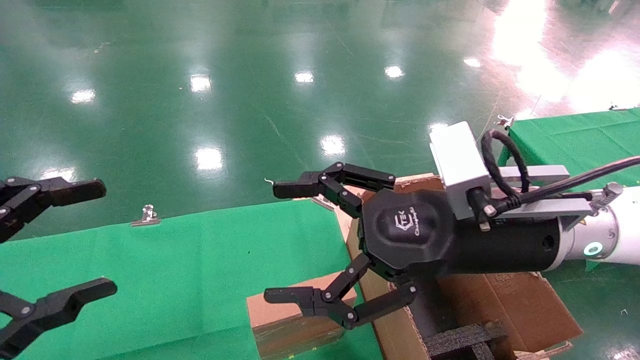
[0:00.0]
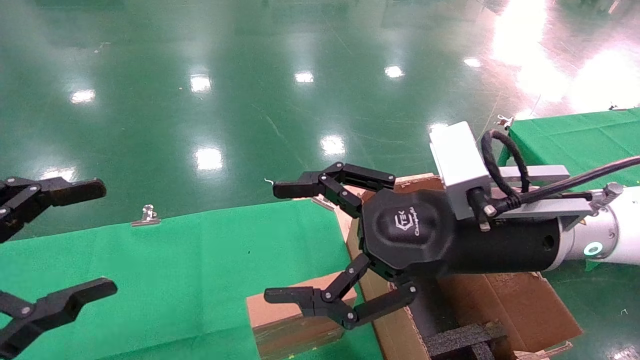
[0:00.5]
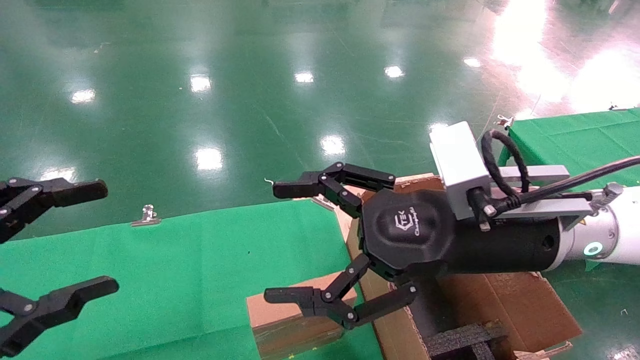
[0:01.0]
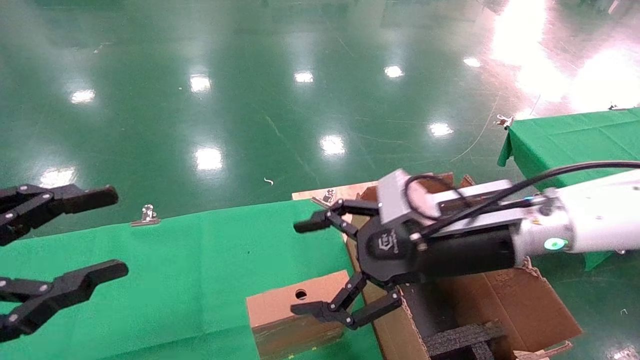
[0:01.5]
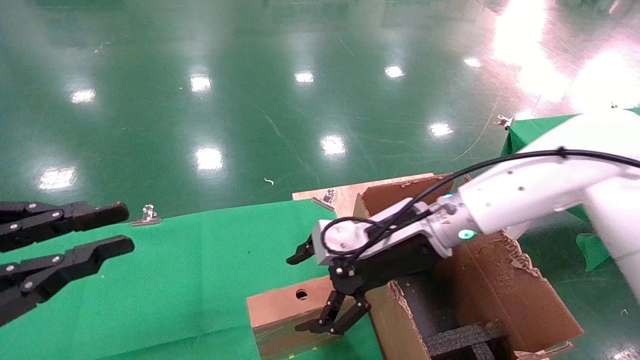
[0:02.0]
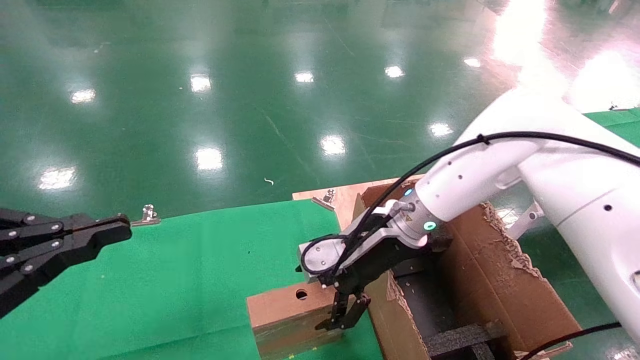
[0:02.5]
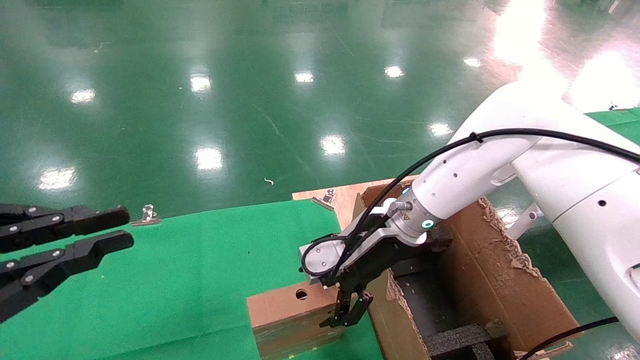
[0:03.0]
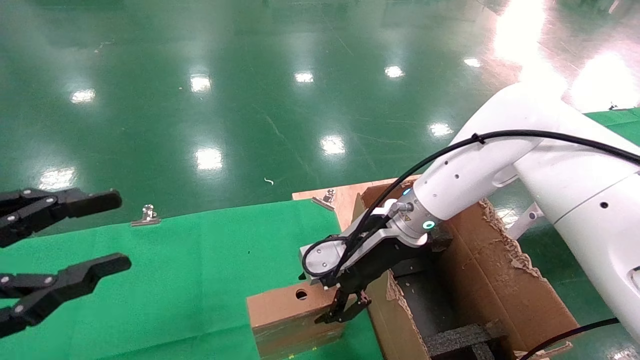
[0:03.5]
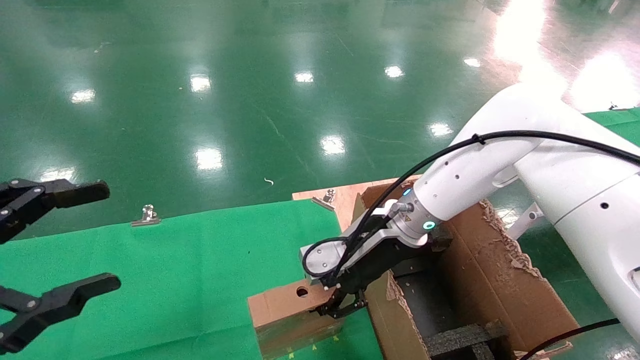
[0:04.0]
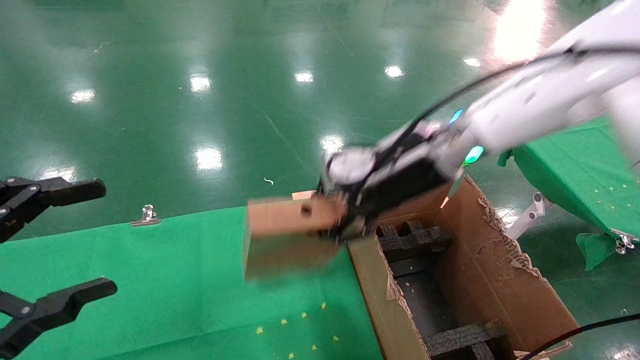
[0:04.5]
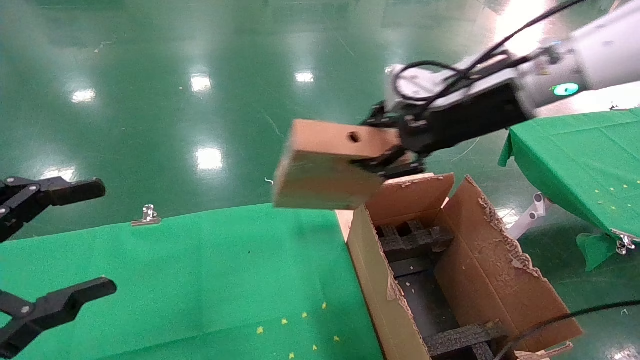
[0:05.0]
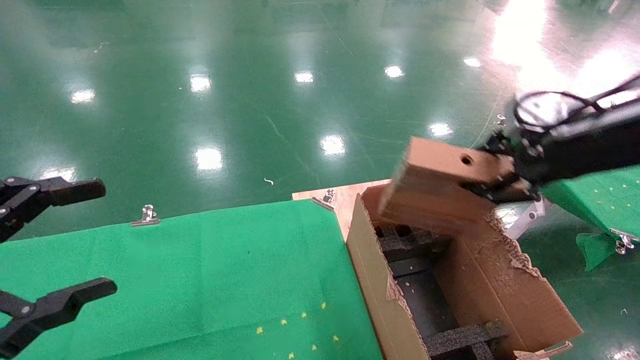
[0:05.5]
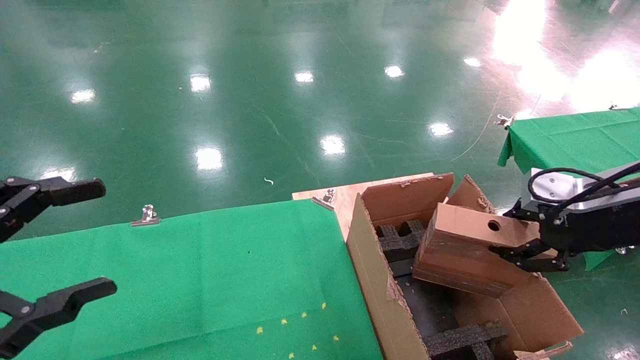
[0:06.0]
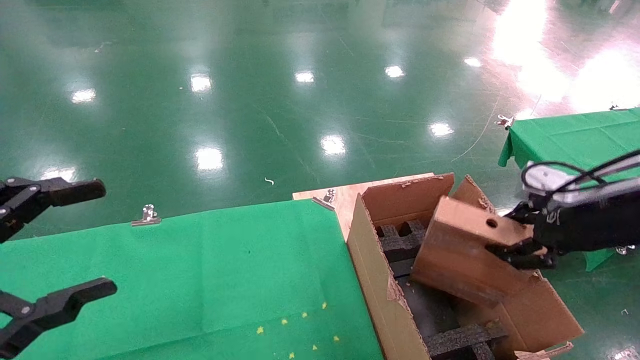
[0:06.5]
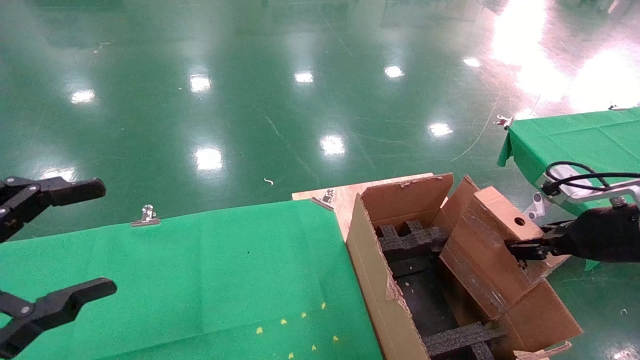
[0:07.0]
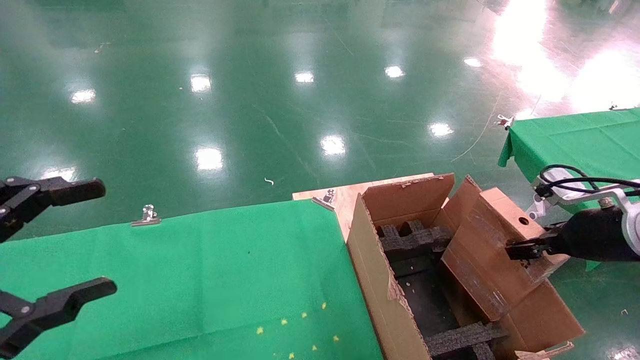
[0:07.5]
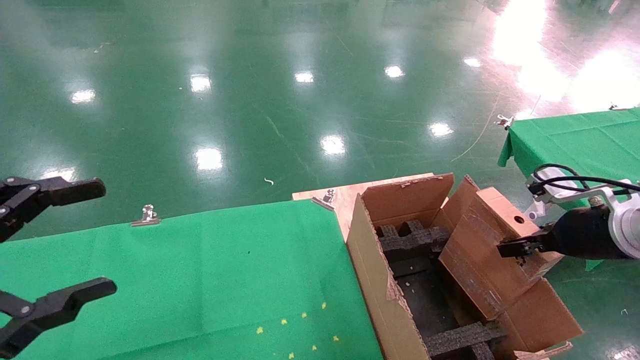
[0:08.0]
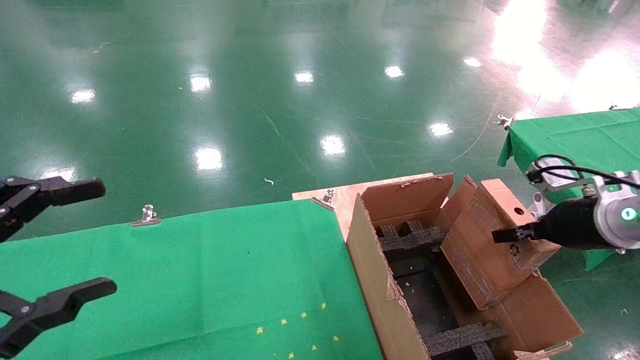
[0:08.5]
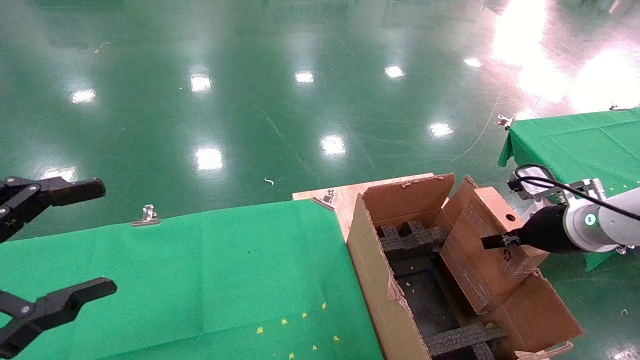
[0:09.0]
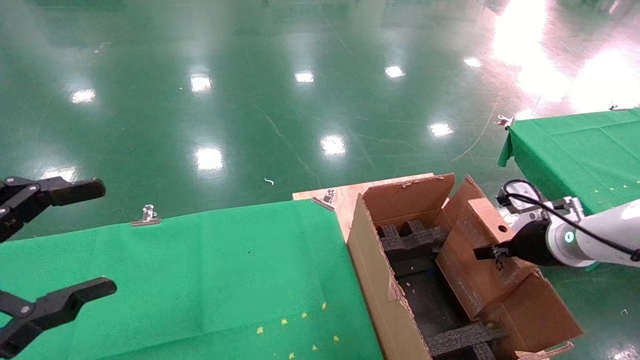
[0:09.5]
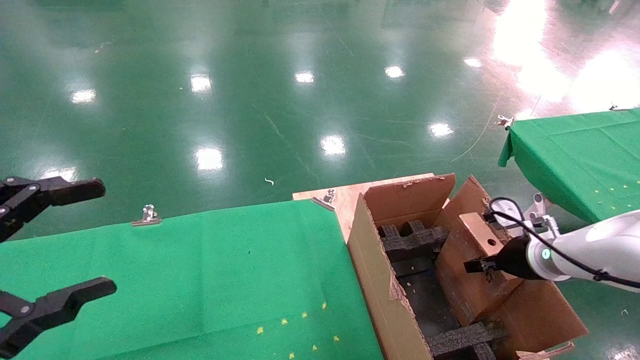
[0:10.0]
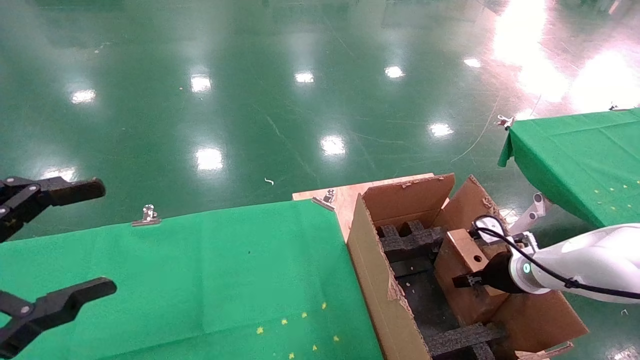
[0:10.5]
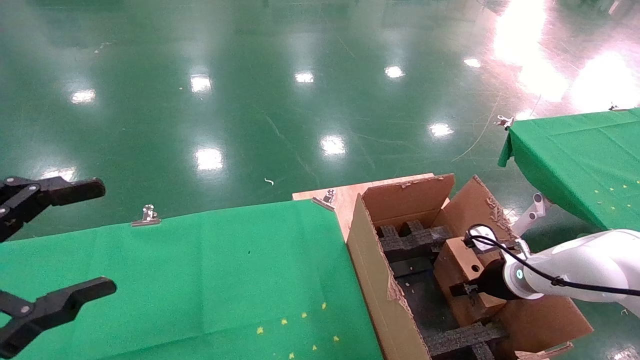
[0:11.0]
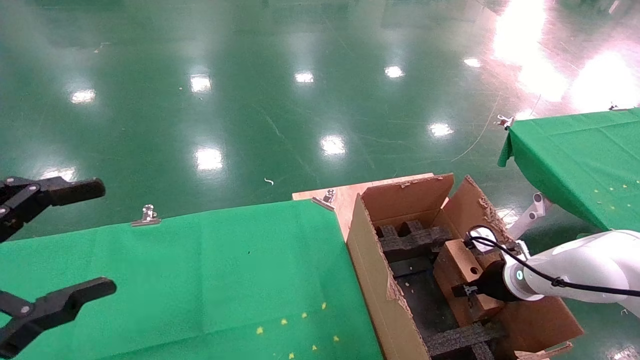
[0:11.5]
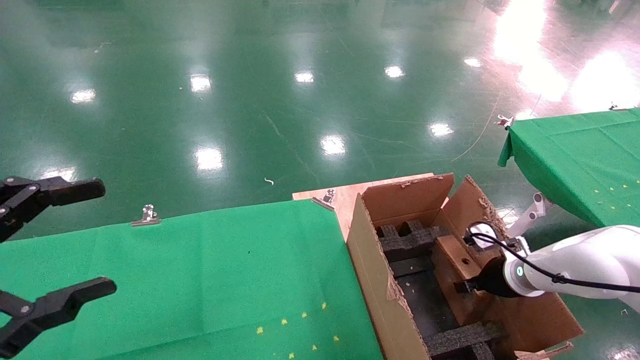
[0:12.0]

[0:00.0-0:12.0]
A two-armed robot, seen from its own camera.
Task of the whole recording: using a robotic arm to pick up a cardboard box and palace it the carton.
Step, 1.5 to 3.5 s: Pick up the mouse and the power cord paper box.
Step, 4.0 to 12.0 s: Place the mouse and the power cord paper box into the container.
0.0 to 2.0 s: The right gripper shifts about 10 cm forward and downward. The left gripper closes its fingers.
2.0 to 4.0 s: The left gripper opens its fingers, while the right gripper closes up.
4.0 to 6.0 s: The right gripper travels to the right and backward by approximately 30 cm.
6.0 to 8.0 s: The right gripper heads downward, covering approximately 5 cm.
8.0 to 10.0 s: The right gripper is displaced downward and forward by some 10 cm.
10.0 to 12.0 s: The right gripper moves some 5 cm, and opens up.

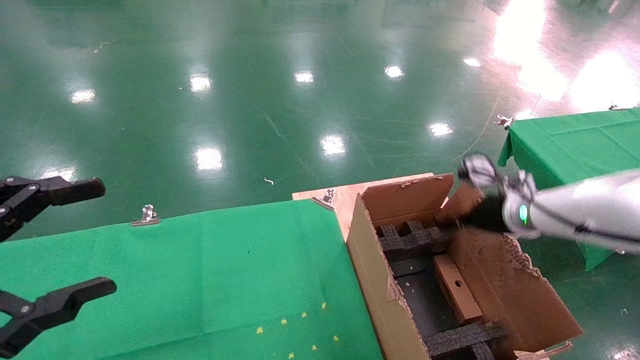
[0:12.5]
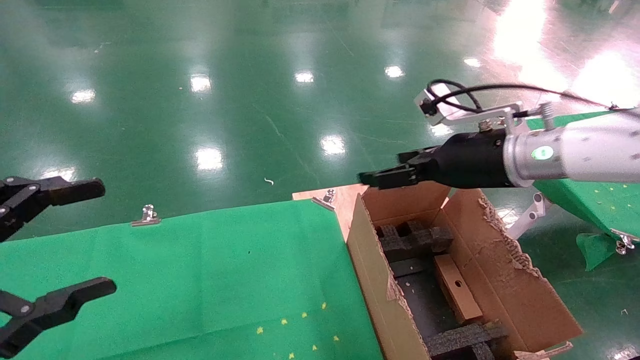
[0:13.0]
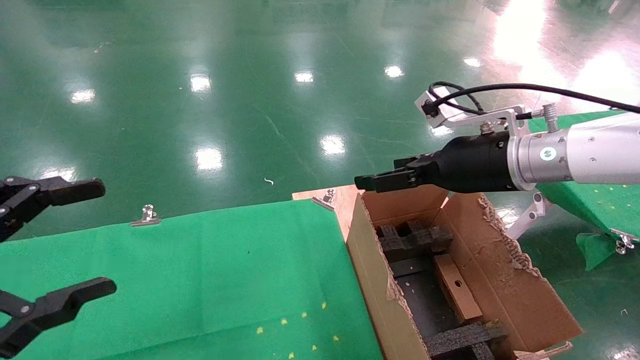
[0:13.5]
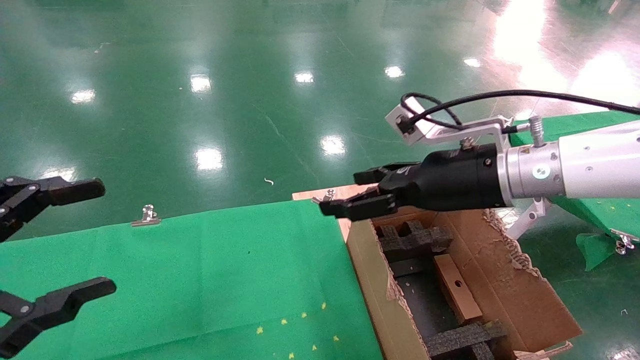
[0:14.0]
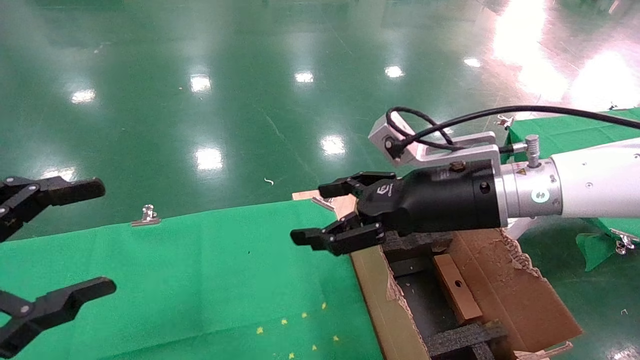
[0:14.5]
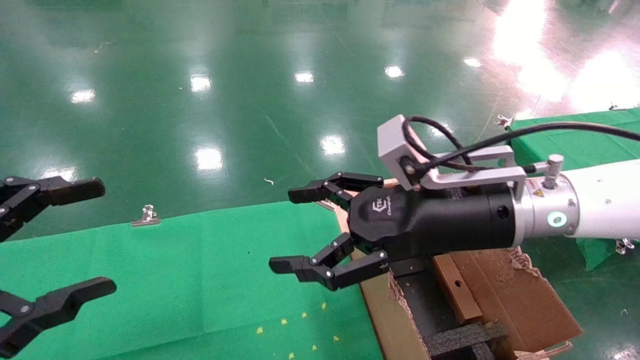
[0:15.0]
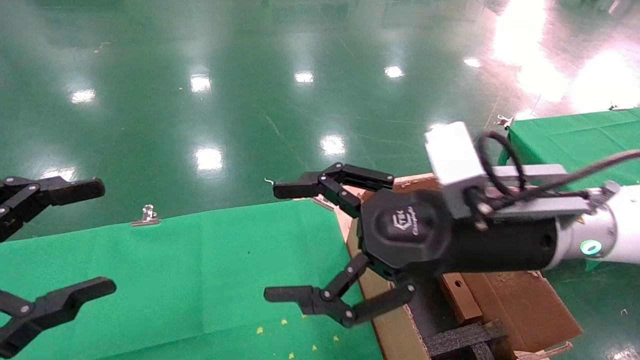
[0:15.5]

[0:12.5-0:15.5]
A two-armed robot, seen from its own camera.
Task of the whole recording: using a robotic arm to pick up a cardboard box and palace it the carton.
12.5 to 14.0 s: The right gripper is displaced to the left, upward and backward by roughly 20 cm.
14.0 to 15.5 s: The right gripper travels backward by roughly 10 cm.

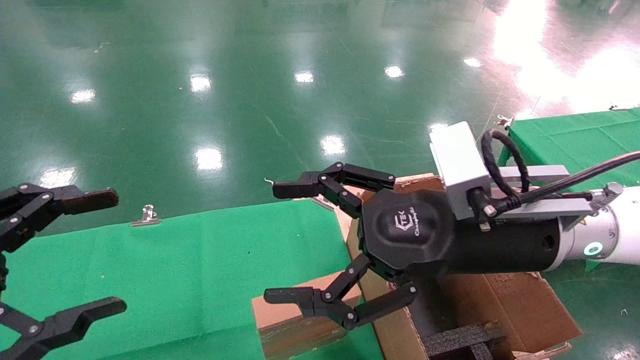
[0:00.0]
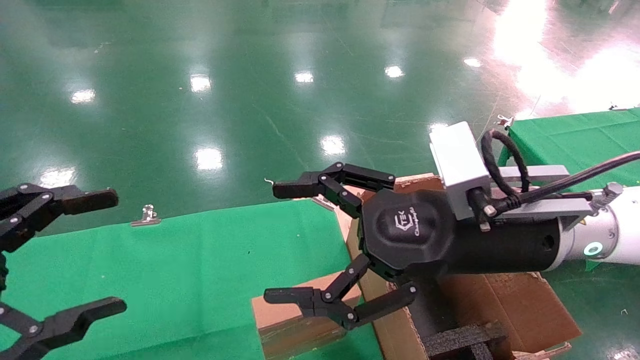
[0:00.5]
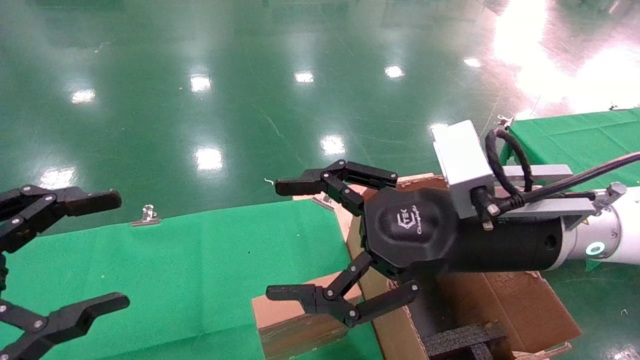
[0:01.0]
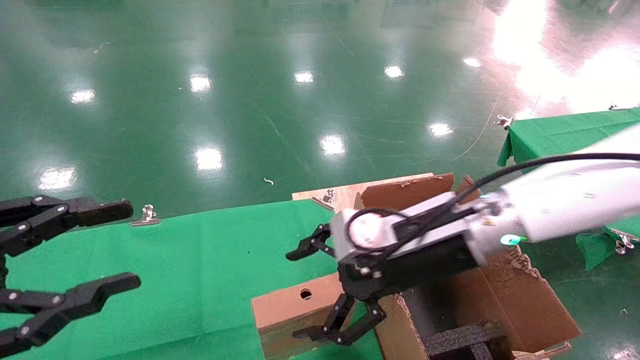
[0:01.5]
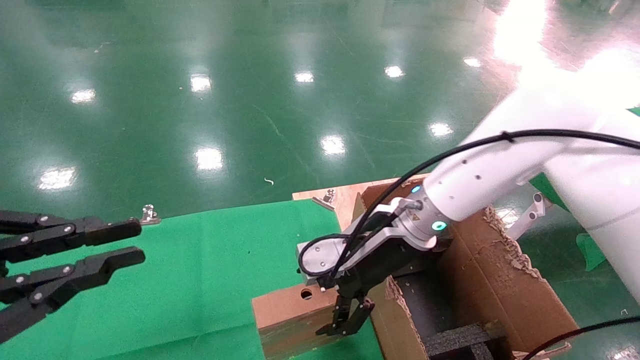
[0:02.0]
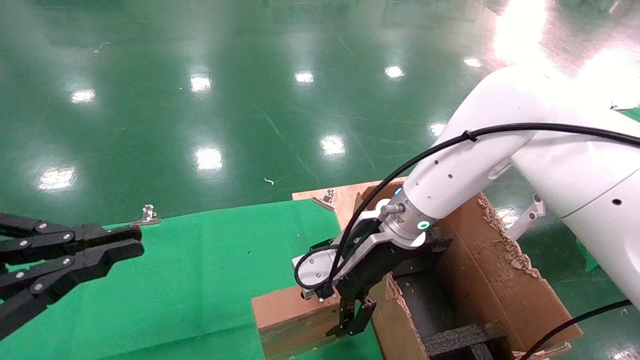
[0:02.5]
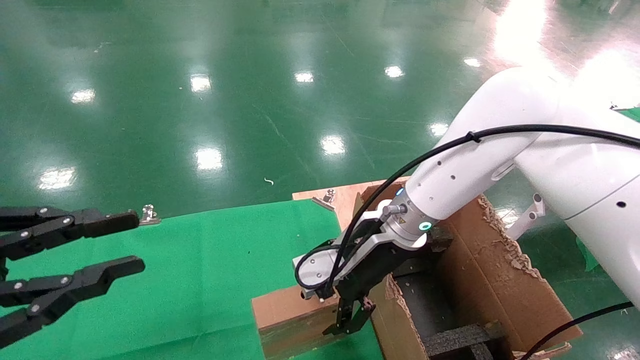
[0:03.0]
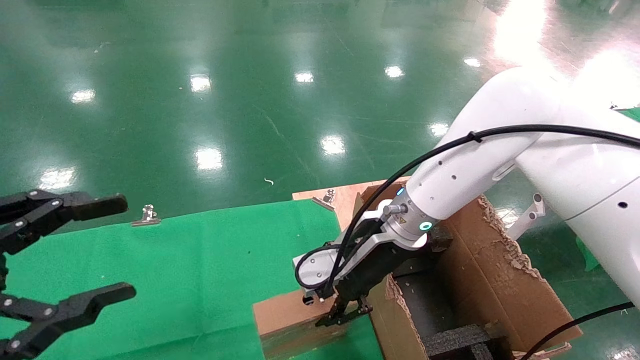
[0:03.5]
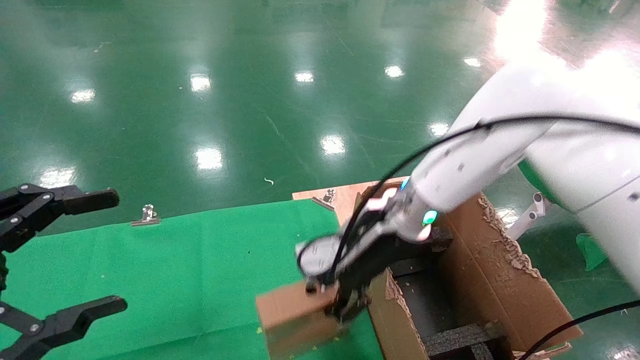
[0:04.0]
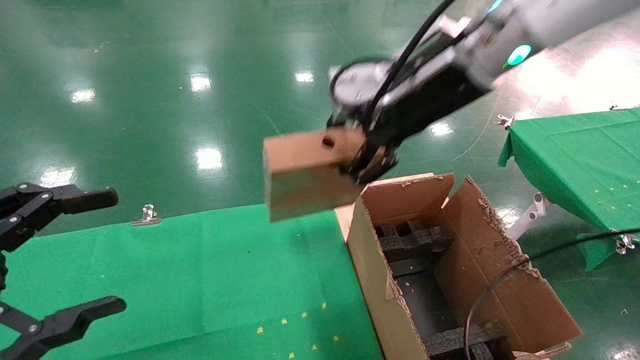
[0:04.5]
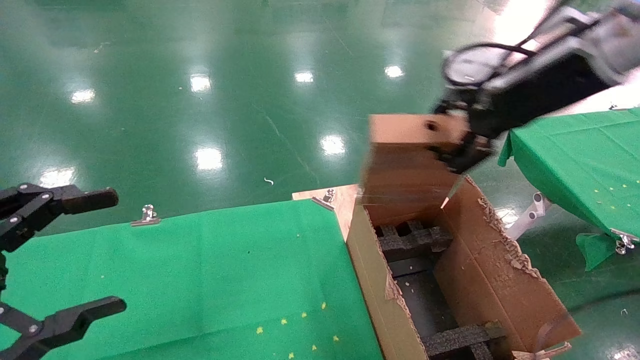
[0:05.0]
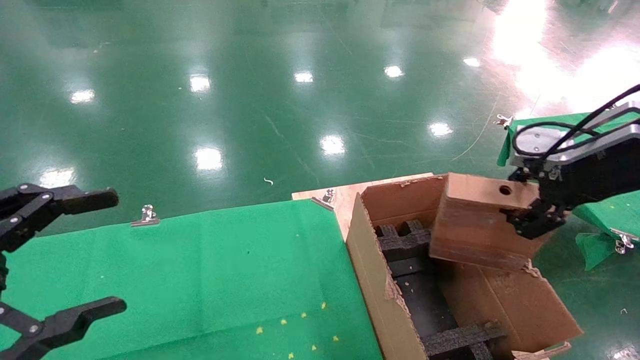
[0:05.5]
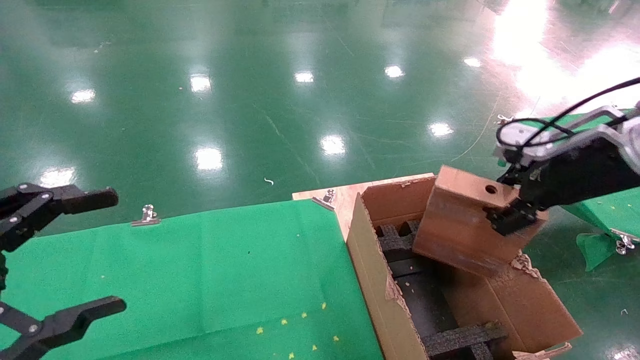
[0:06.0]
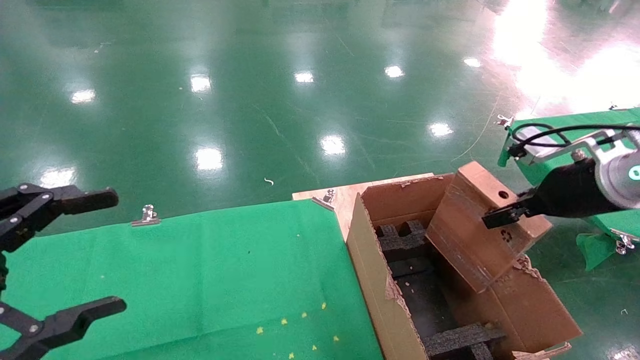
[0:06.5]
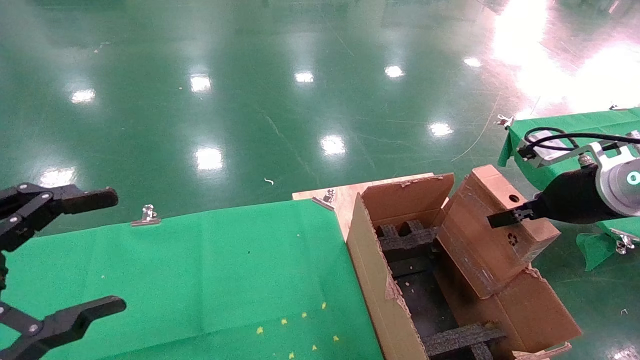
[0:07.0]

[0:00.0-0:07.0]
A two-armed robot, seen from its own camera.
Task of the whole recording: using a robotic arm to pick up a cardboard box and palace it the carton.
Step, 1.5 to 3.5 s: Pick up the mouse and the power cord paper box.
0.0 to 2.0 s: The right gripper goes roughly 15 cm forward, to the left and downward. Meanwhile the left gripper closes its fingers.
2.0 to 3.5 s: The right gripper closes its fingers; the left gripper opens its fingers.
3.5 to 5.0 s: The right gripper moves upward and to the right, roughly 25 cm, and closes, while the left gripper opens up.
5.0 to 7.0 s: The right gripper moves downward and to the right, about 15 cm.
